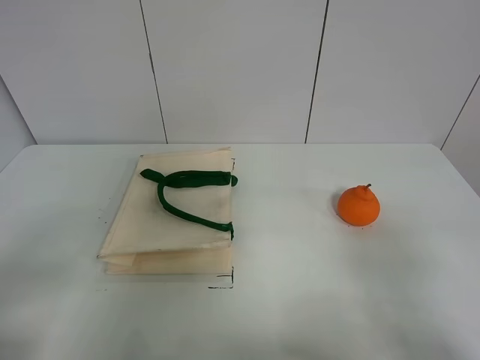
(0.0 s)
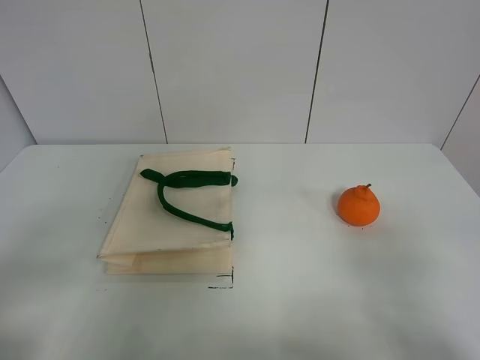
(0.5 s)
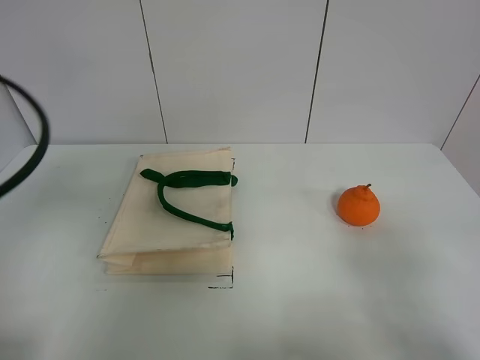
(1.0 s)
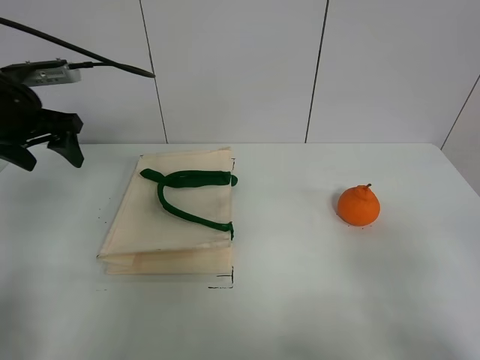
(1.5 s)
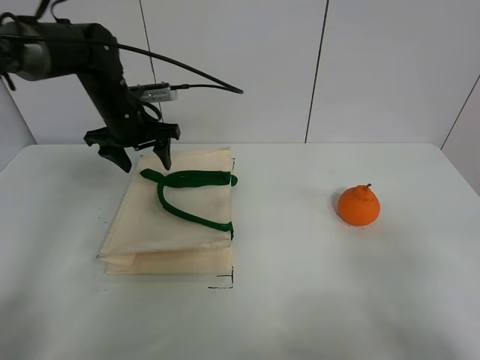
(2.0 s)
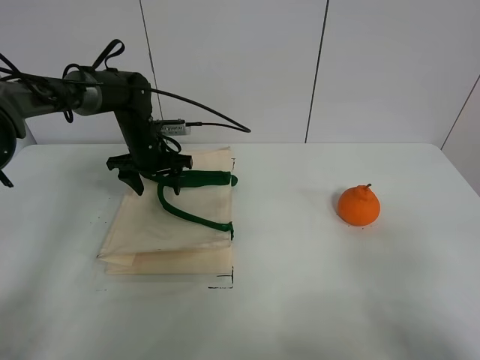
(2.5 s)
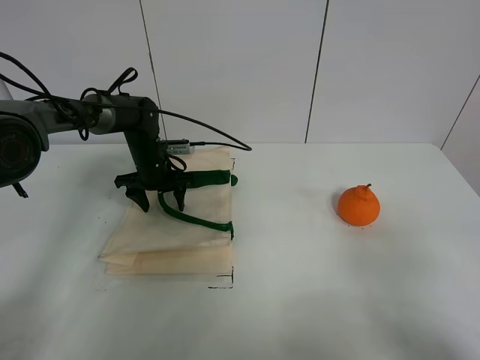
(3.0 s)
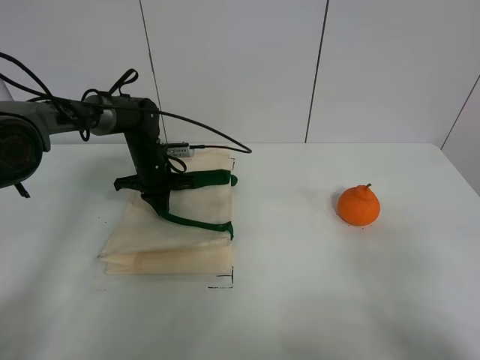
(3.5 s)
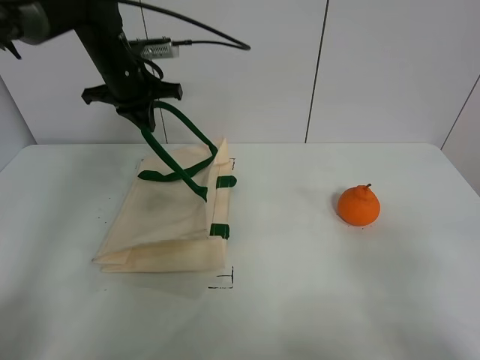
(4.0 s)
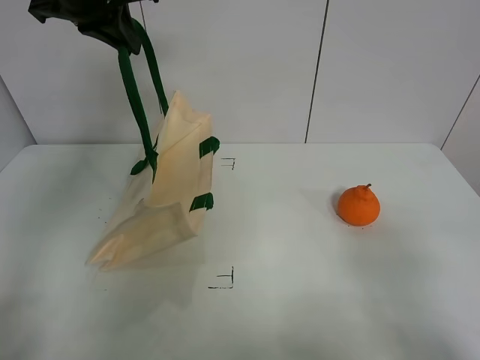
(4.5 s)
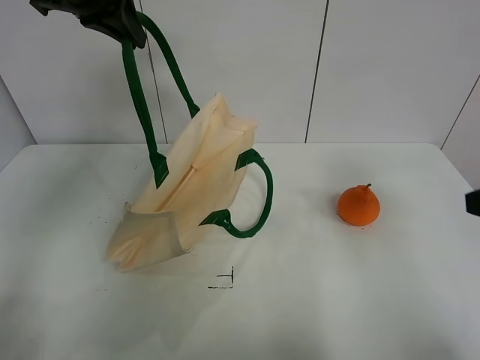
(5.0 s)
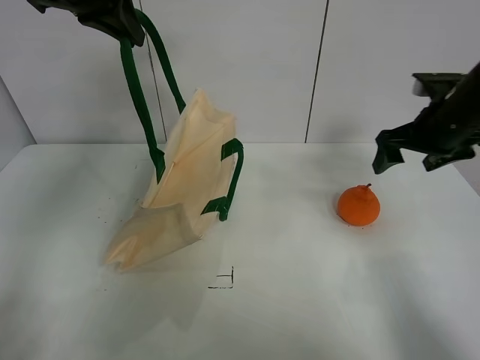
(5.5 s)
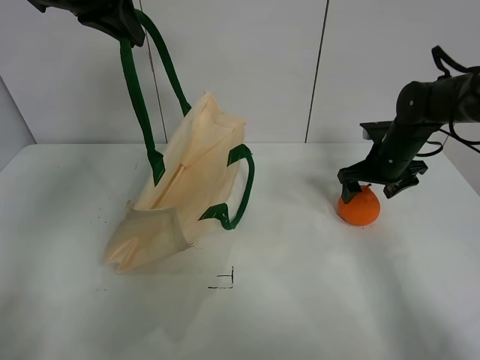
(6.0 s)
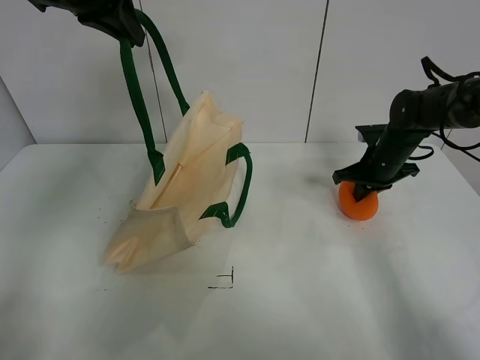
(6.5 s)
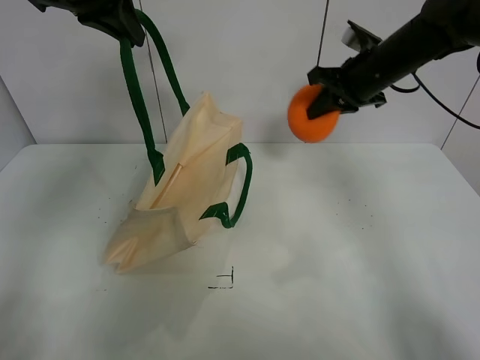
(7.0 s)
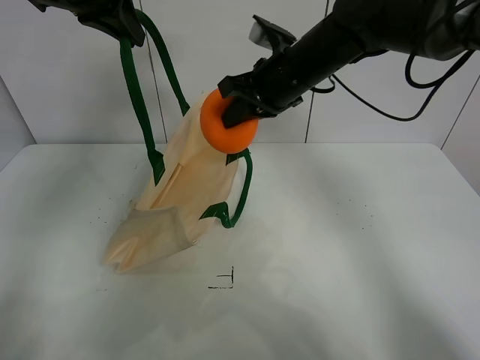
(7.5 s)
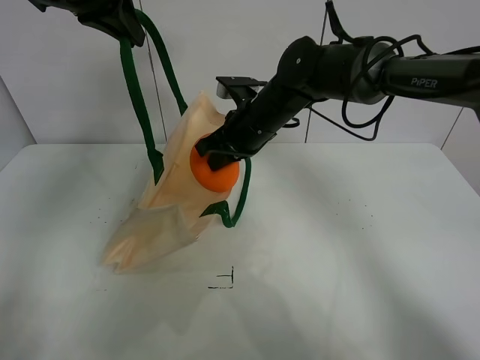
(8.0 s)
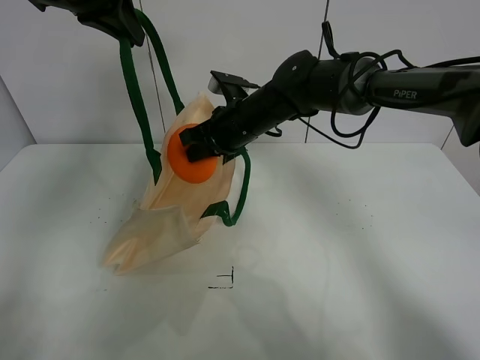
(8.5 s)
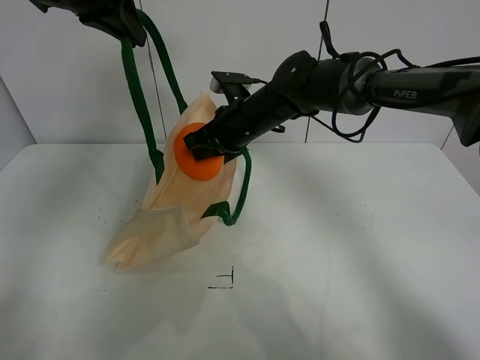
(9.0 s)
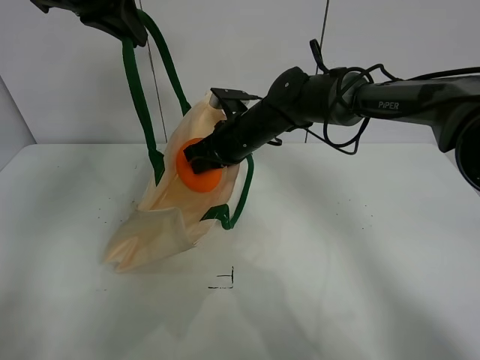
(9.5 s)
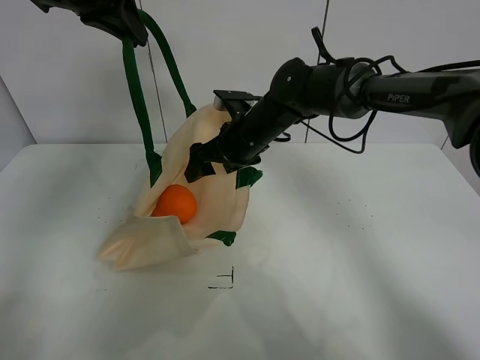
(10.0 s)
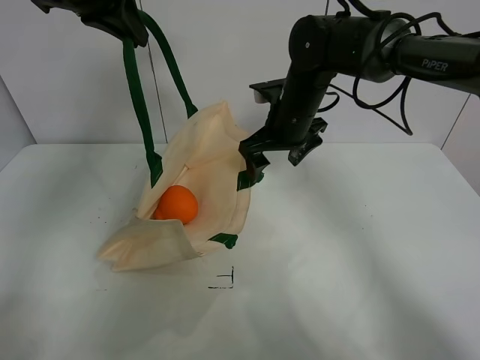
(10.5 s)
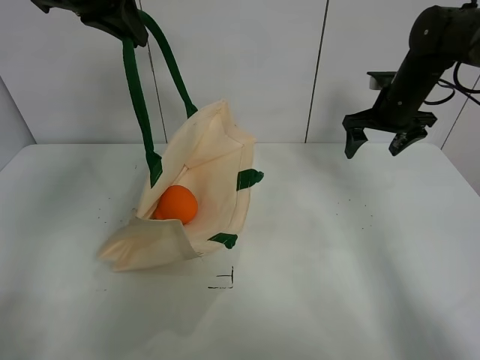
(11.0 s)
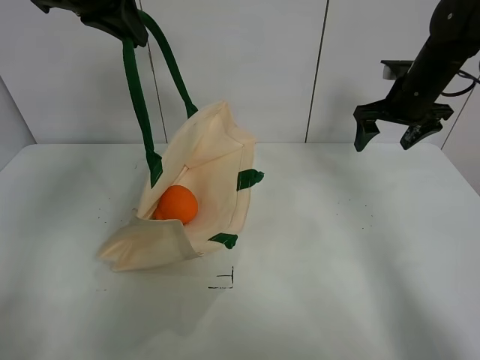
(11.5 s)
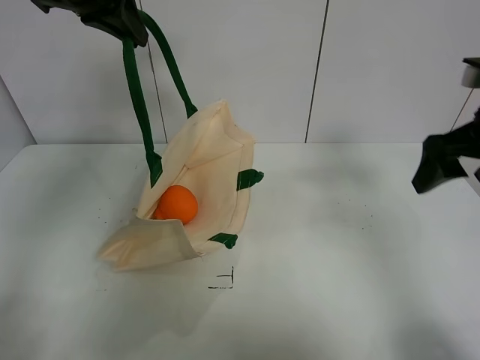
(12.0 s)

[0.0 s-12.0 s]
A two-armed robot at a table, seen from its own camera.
Task of the whole recording: open the white linen bag and put the orange in the bag.
Step, 0.0 to 4.5 s: Lift the handbag with left gripper.
Step, 5.0 to 6.0 s: Grasp the orange with right gripper.
Step, 6.5 to 9.5 s: Place the orange in the handbag with right gripper.
0.0 to 2.0 s: The left gripper heads forward, covering some 40 cm.
2.0 to 4.0 s: The left gripper moves upward, approximately 10 cm, and closes.
4.0 to 6.0 s: The left gripper moves upward and backward, about 15 cm. The right gripper moves forward, roughly 40 cm.
6.0 to 8.0 s: The right gripper heads to the left, covering some 25 cm, and closes its fingers.
8.0 to 10.0 s: The right gripper opens.
10.0 to 12.0 s: The right gripper travels to the right, backward and upward by approximately 30 cm.

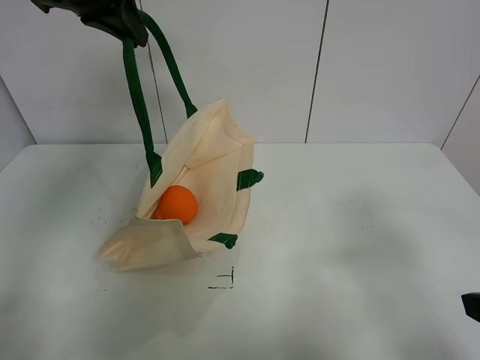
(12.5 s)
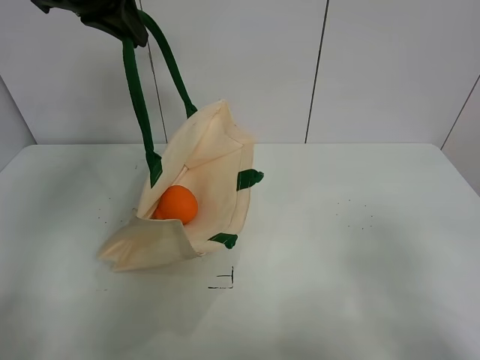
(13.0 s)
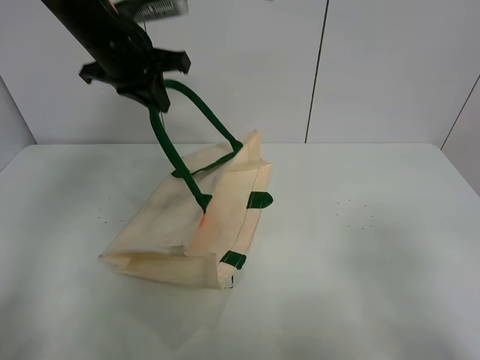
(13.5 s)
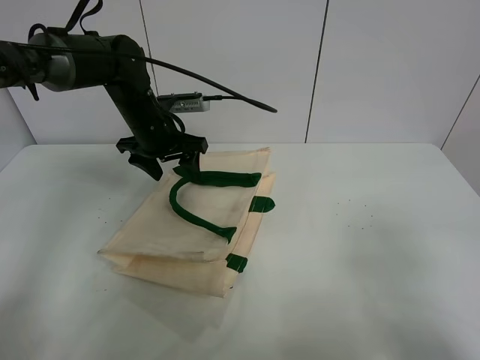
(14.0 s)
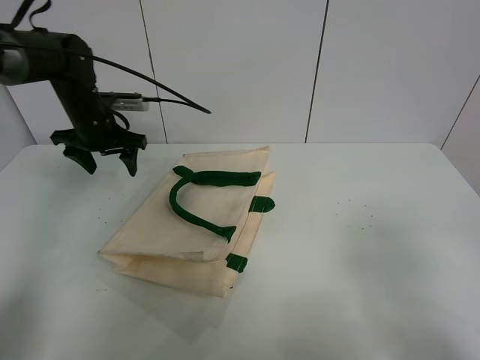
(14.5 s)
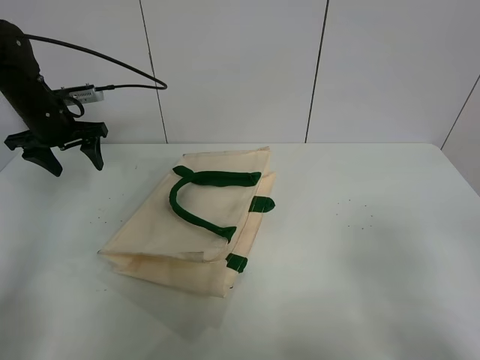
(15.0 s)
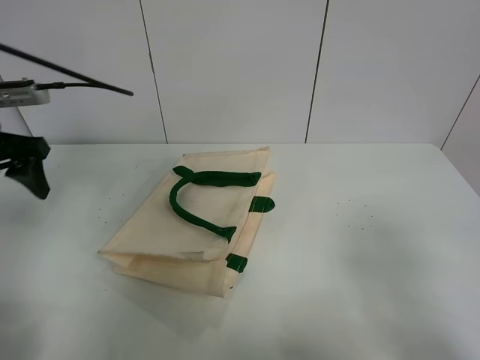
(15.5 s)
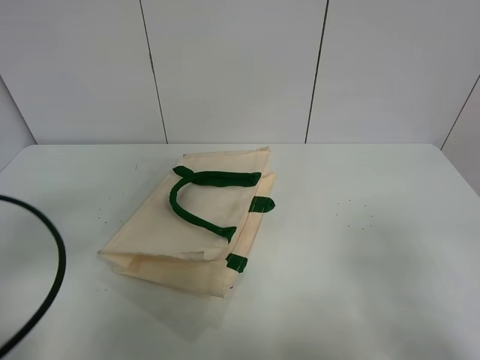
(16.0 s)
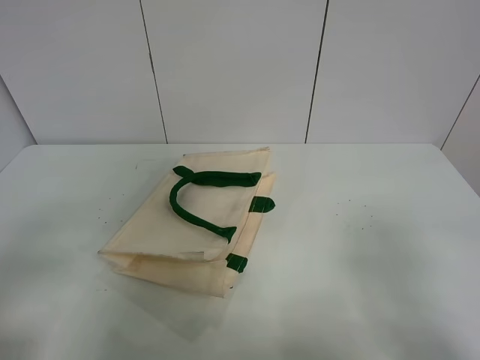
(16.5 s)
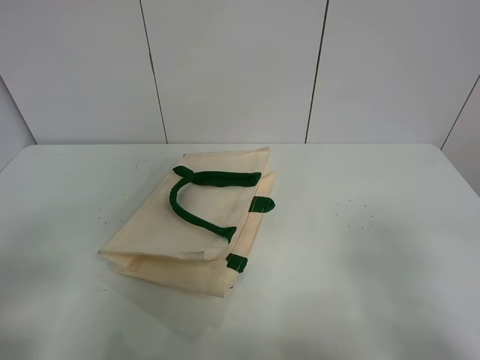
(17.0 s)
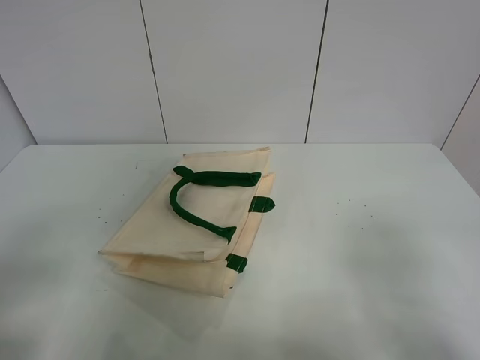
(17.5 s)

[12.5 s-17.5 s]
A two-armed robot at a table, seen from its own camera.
Task of the whole recording: open the white linen bag and put the orange in the bag.
12.5 to 15.0 s: The right gripper is displaced backward by roughly 5 cm, while the left gripper travels downward and to the left by approximately 25 cm, and opens up.
15.0 to 17.5 s: The left gripper is displaced backward by approximately 40 cm.
